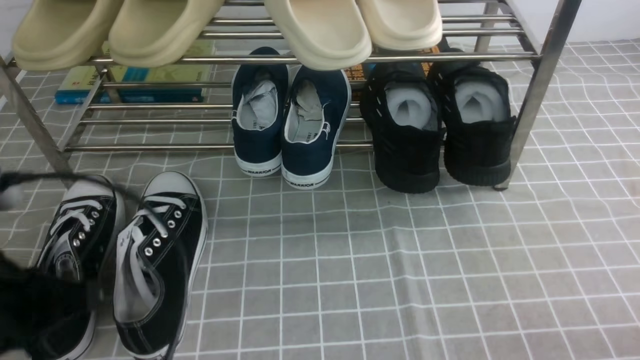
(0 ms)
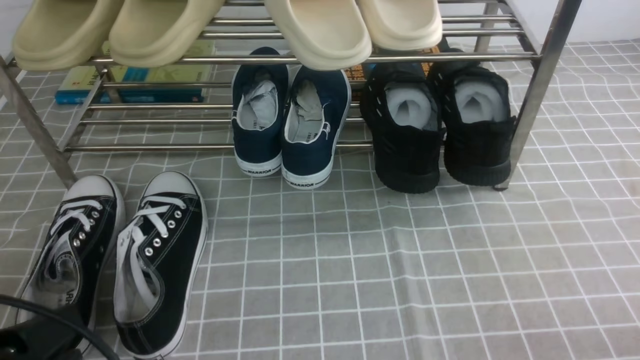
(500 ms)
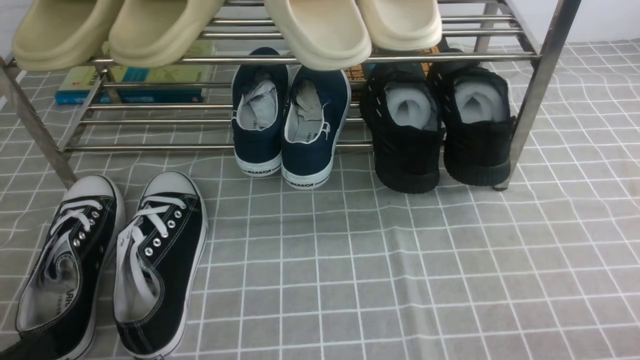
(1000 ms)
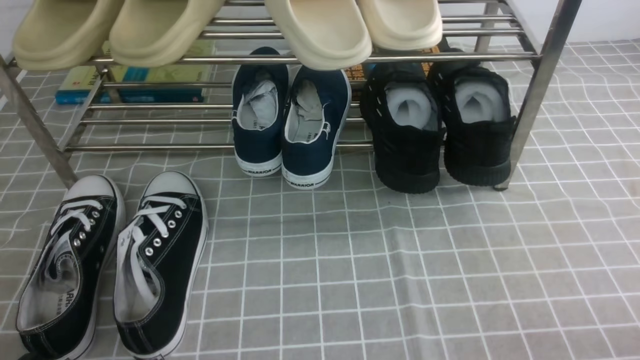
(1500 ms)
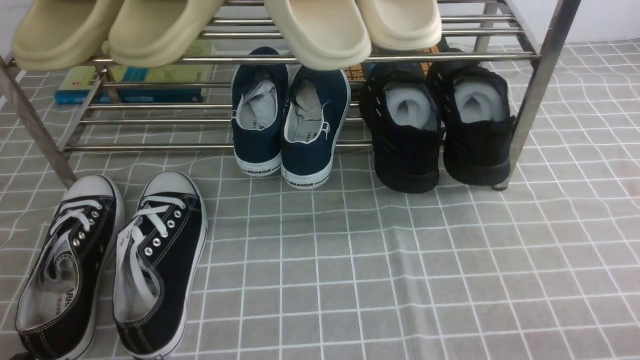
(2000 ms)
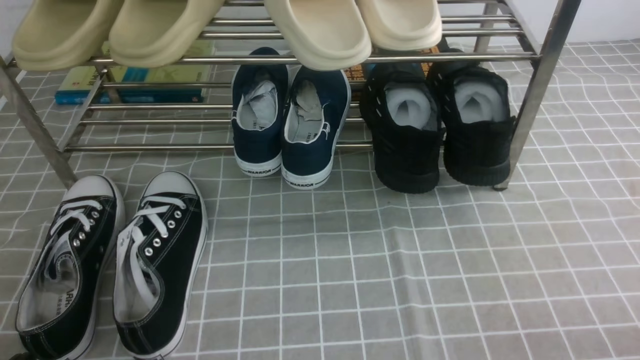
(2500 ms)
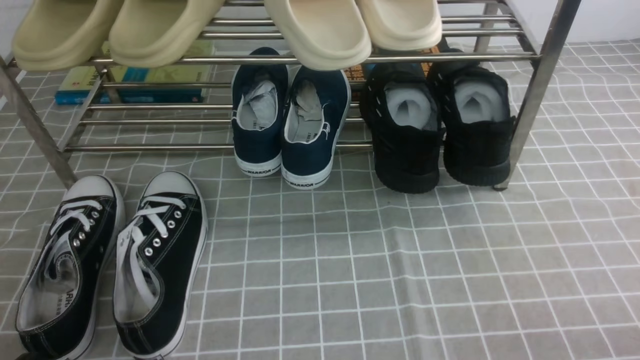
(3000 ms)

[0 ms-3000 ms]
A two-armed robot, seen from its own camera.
0 ms to 1500 ms: The left gripper goes roughly 15 cm downward and backward.
1500 ms to 3000 ms: The two grippers keep their place.

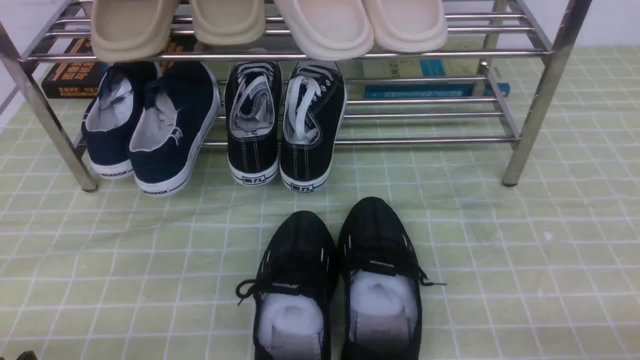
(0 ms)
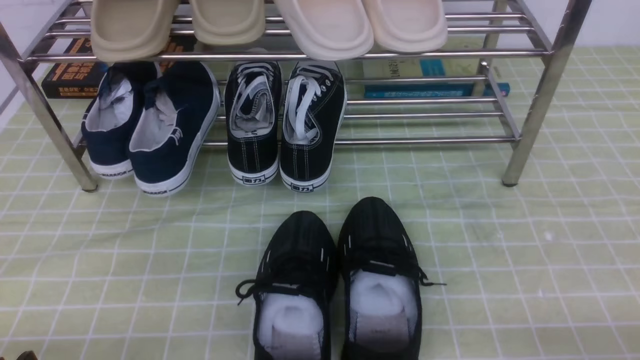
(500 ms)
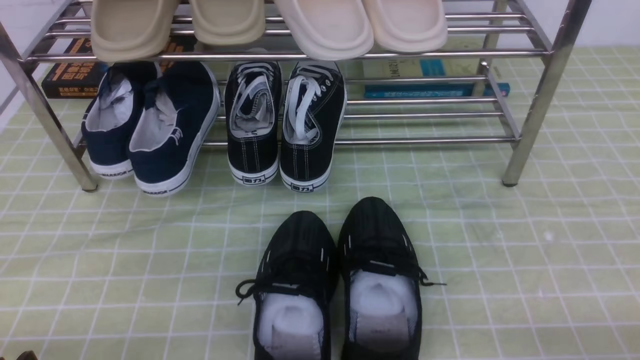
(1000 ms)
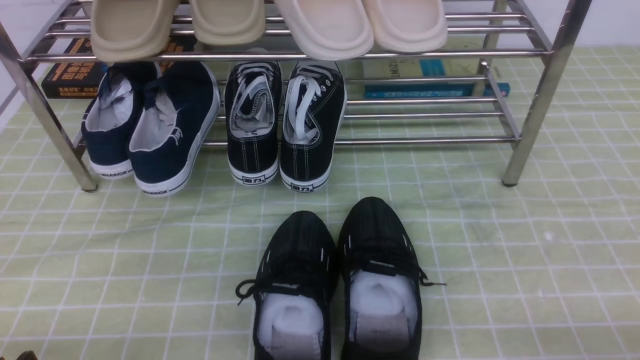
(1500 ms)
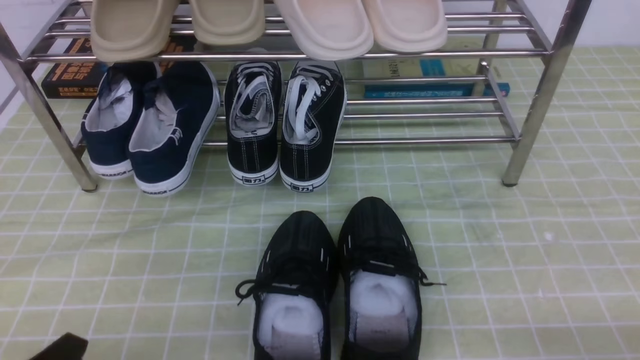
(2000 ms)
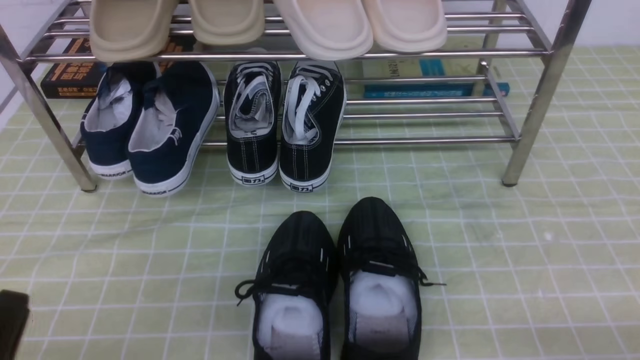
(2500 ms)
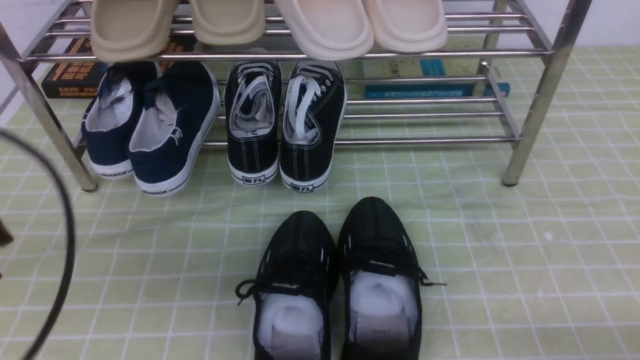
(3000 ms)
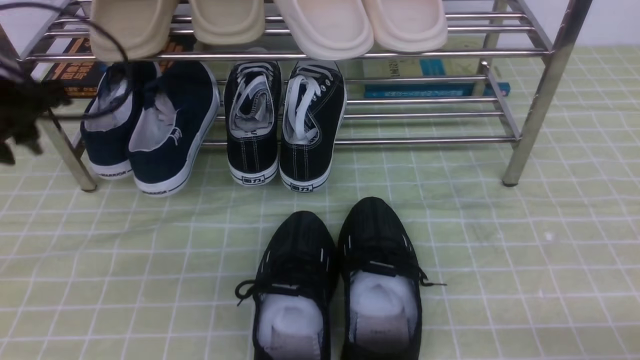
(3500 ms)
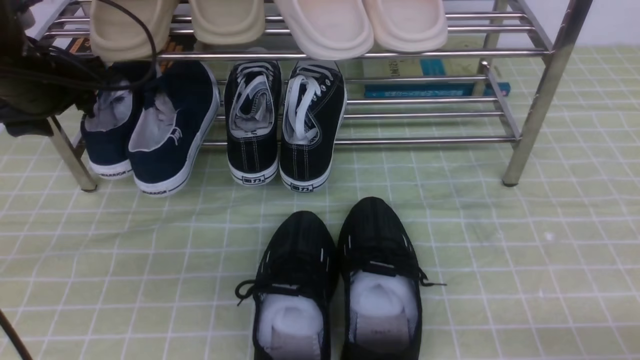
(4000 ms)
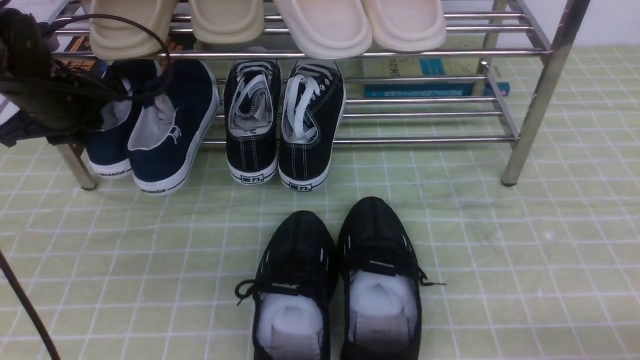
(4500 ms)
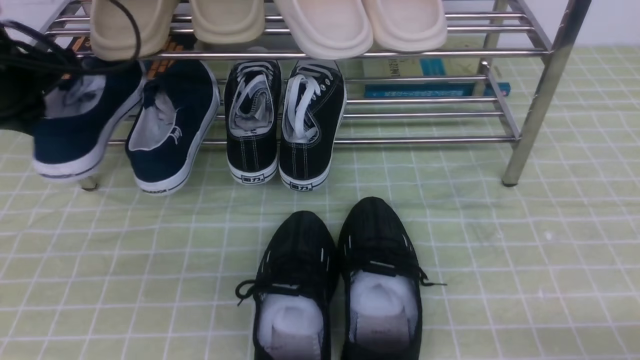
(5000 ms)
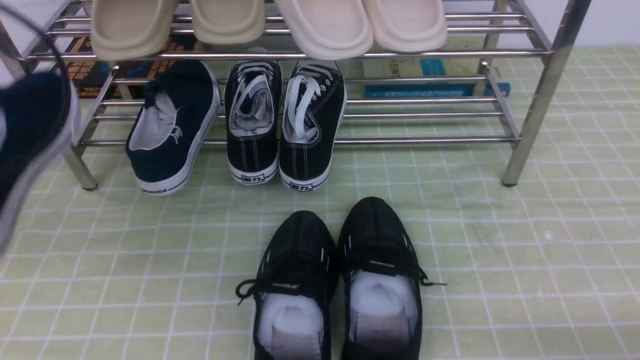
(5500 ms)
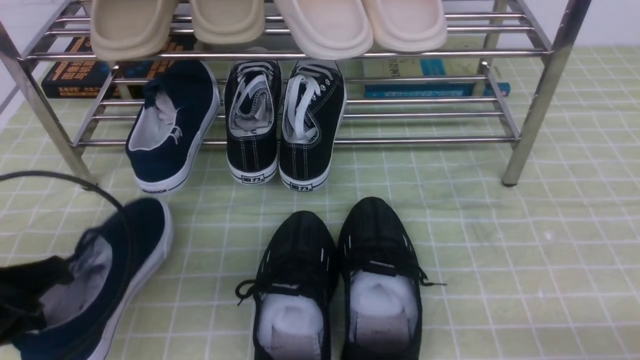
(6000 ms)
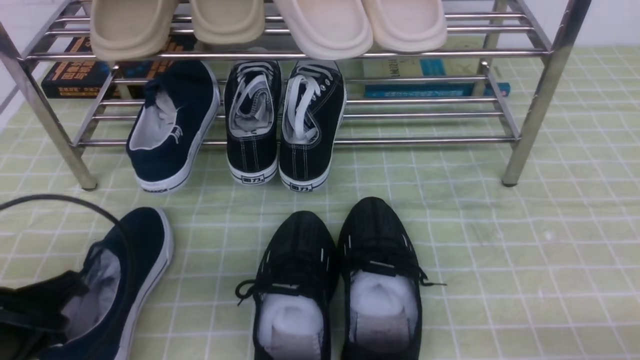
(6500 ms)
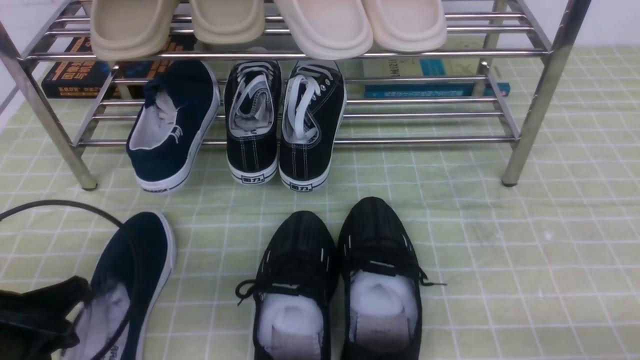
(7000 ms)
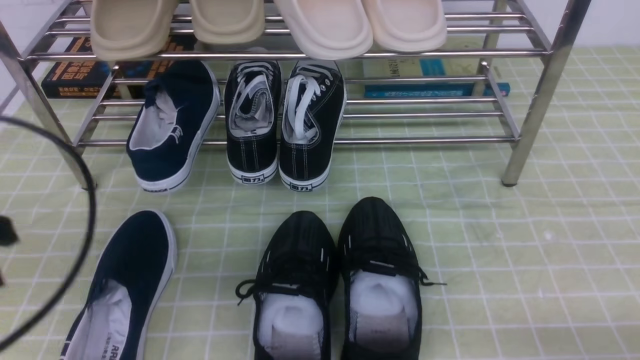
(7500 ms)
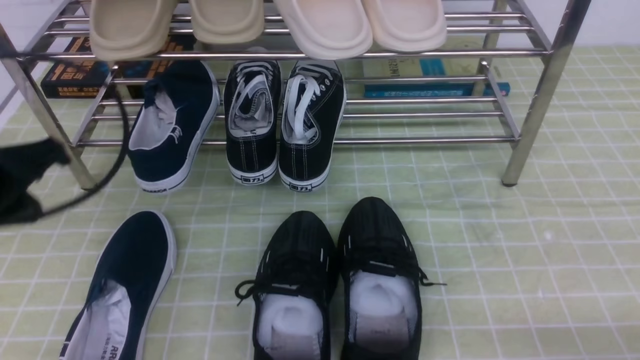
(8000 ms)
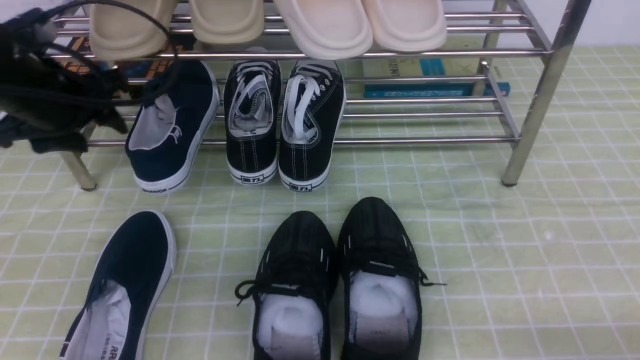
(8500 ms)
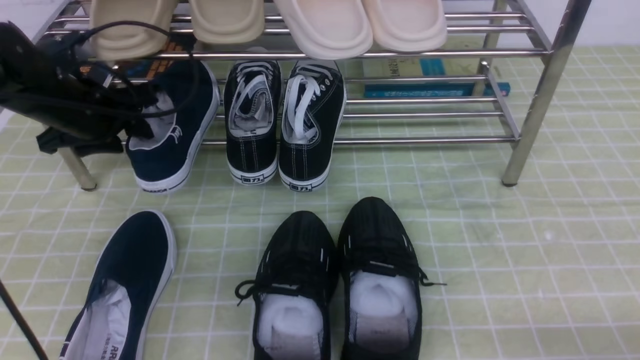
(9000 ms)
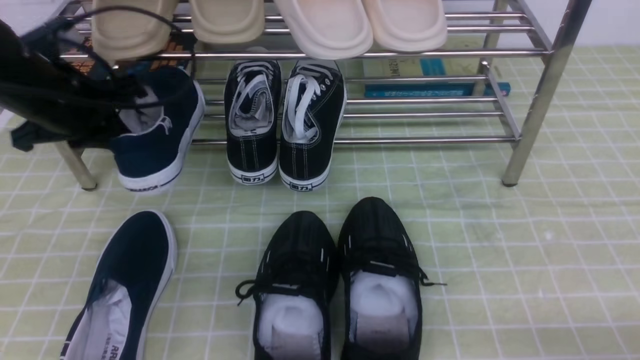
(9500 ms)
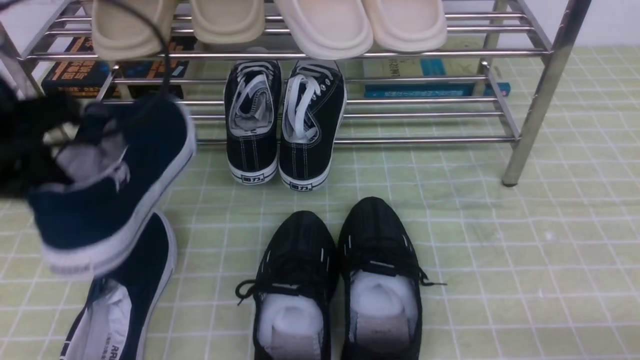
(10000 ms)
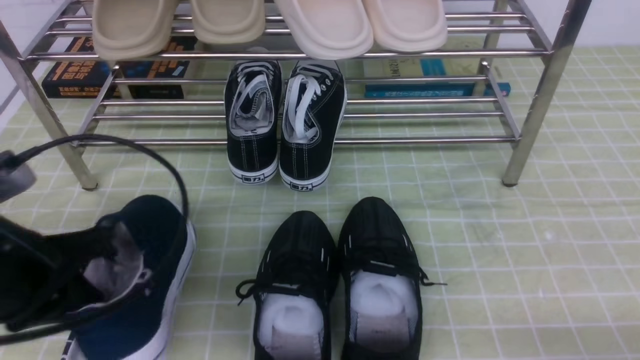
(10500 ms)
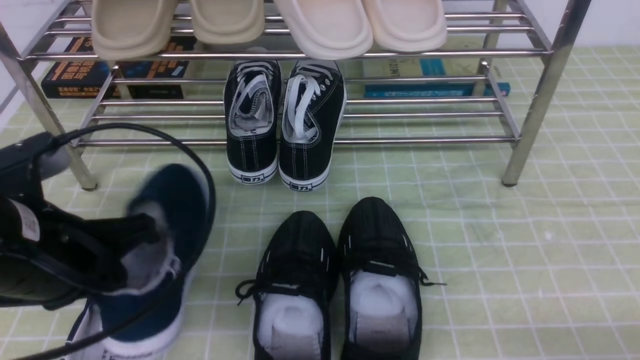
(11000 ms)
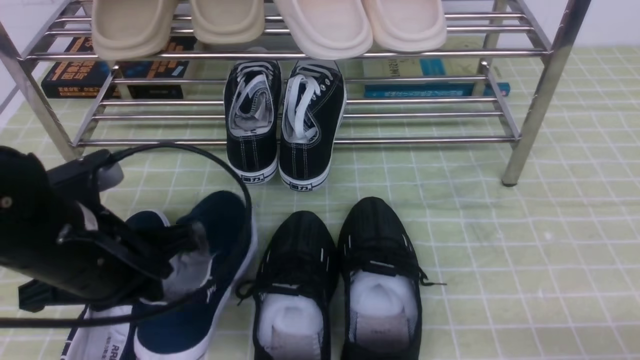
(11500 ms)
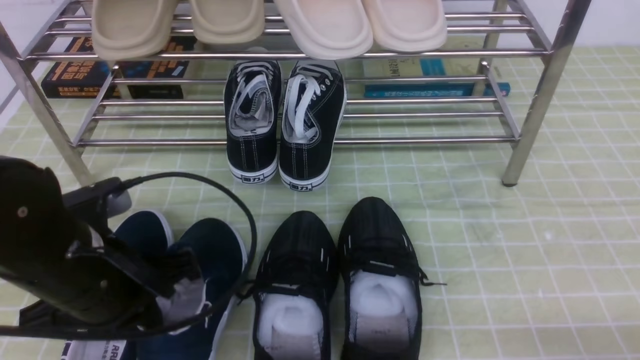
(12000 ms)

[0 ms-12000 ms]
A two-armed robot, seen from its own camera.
Step, 0 ms to 4500 ms: use the left arm to clamp a shoe on the left side of the shoe rack.
Step, 5000 ms to 7000 ms: Use your left arm to remove the clamped shoe from the shoe rack and put it down.
Step, 7500 ms to 9000 ms: use the left arm to clamp a shoe on the left side of the shoe rack.
2000 ms to 4000 ms: The left gripper heads forward, covering approximately 35 cm, and opens up.
4000 ms to 6000 ms: The left gripper goes some 25 cm backward, and closes up.
6000 ms to 8000 ms: The left gripper shifts approximately 10 cm forward and upward, and opens, then closes again.
8000 ms to 10000 ms: The left gripper goes forward and returns, about 15 cm each way, and opens, then closes again.
10000 ms to 12000 ms: The left gripper is displaced downward and to the right by about 10 cm.

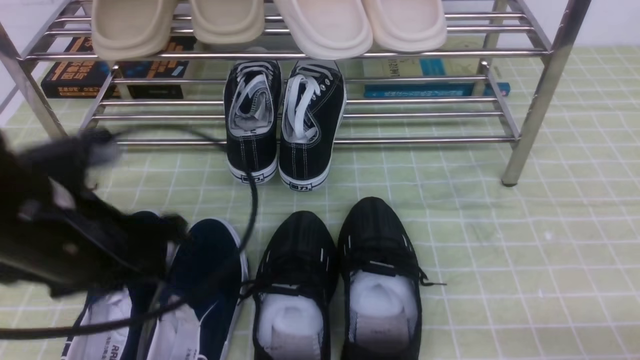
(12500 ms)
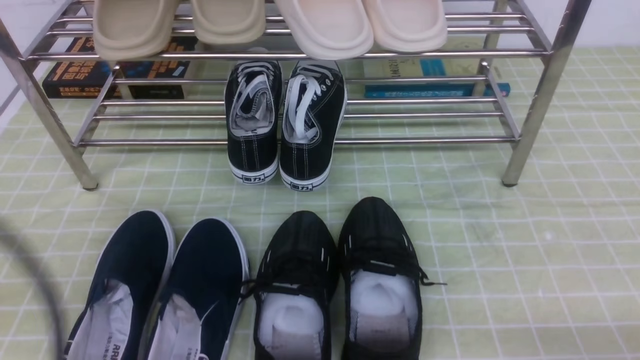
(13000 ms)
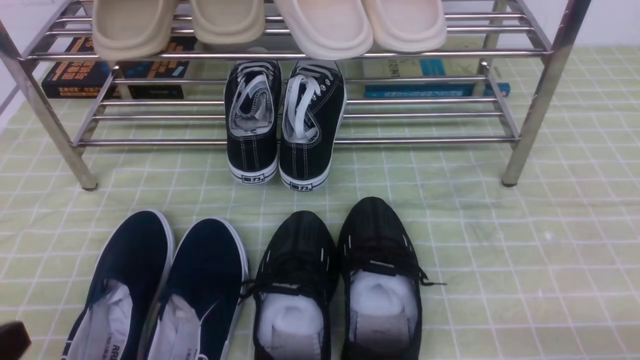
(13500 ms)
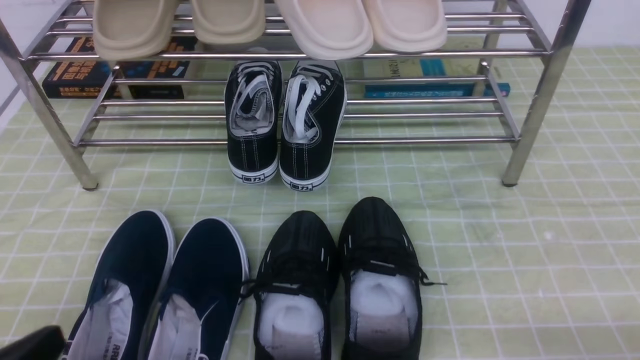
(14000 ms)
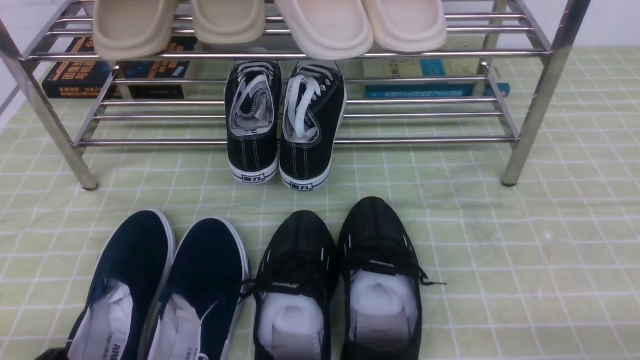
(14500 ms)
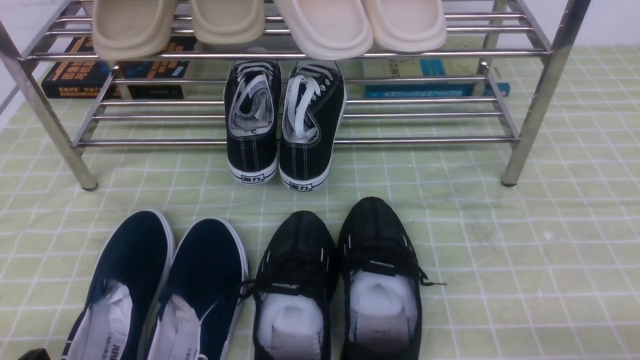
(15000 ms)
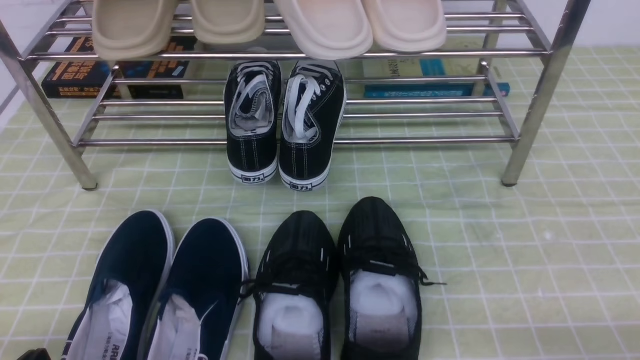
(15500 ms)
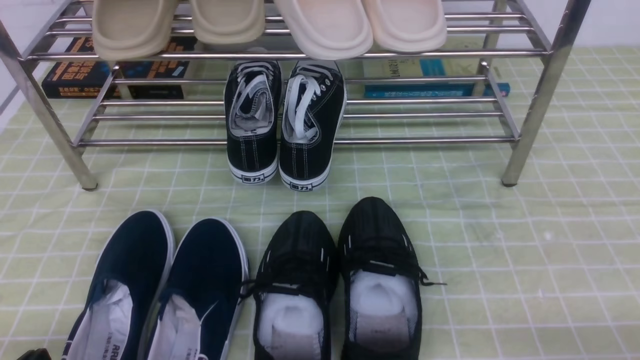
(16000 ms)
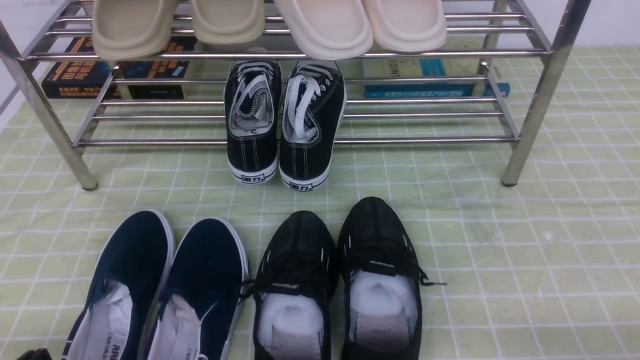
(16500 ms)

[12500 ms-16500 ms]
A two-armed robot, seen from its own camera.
12500 ms to 14500 ms: The left gripper travels backward, downward and to the left by about 20 cm, and closes up.
